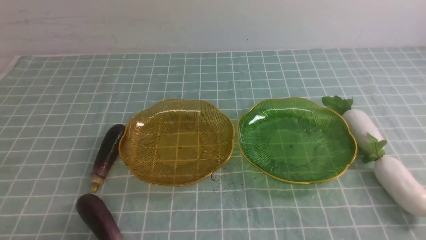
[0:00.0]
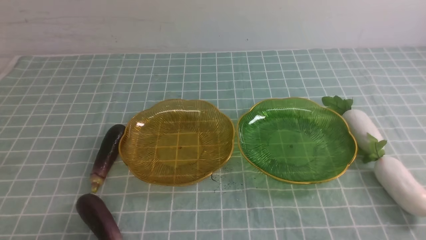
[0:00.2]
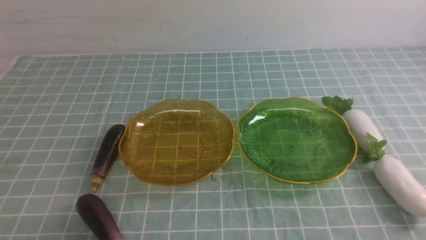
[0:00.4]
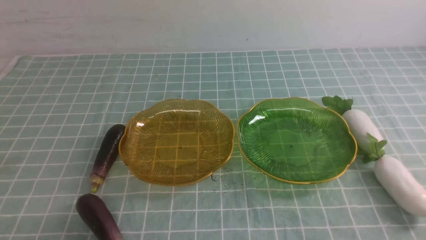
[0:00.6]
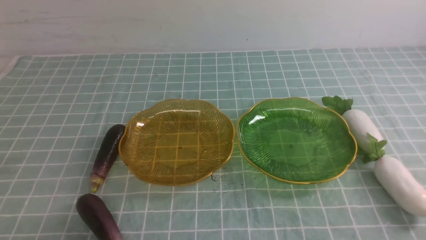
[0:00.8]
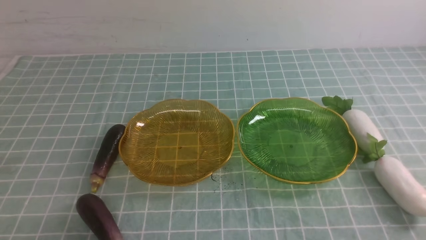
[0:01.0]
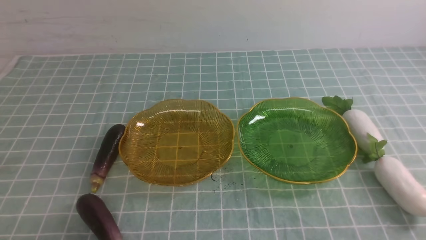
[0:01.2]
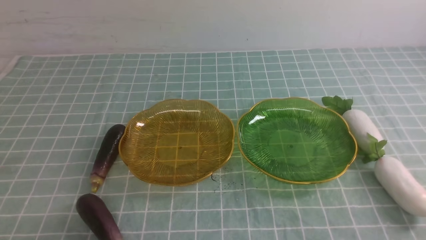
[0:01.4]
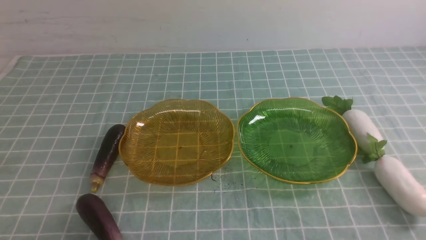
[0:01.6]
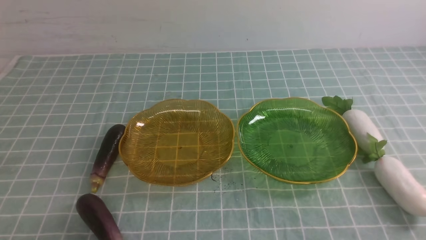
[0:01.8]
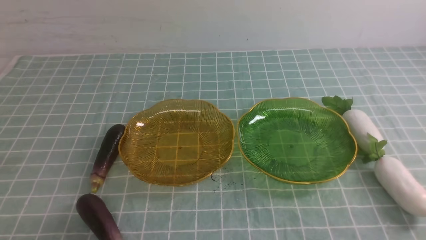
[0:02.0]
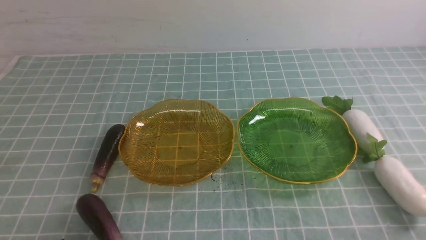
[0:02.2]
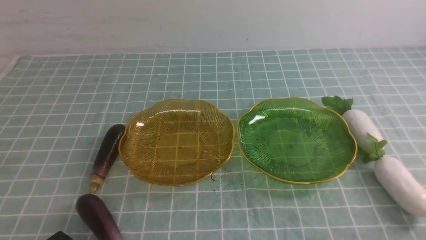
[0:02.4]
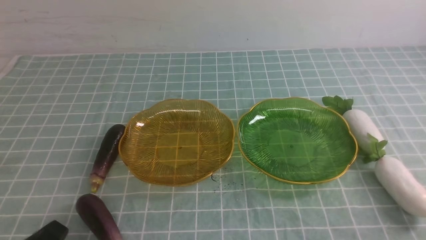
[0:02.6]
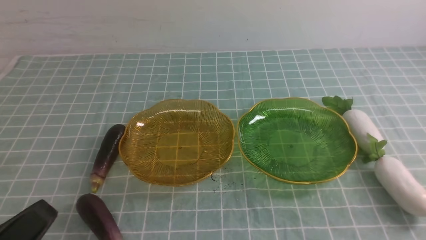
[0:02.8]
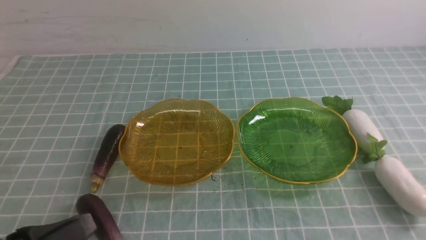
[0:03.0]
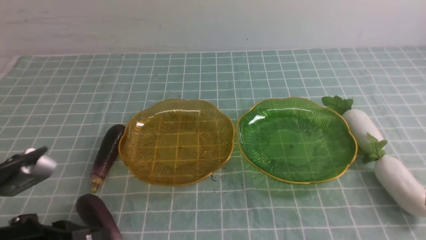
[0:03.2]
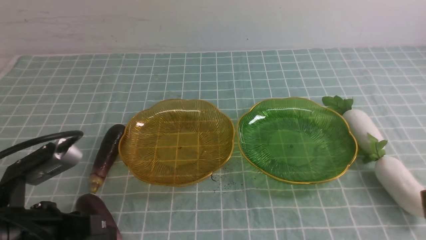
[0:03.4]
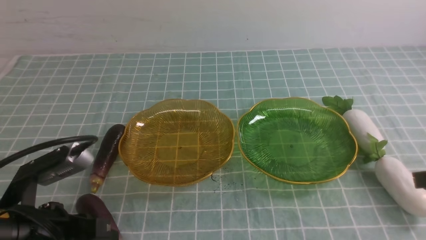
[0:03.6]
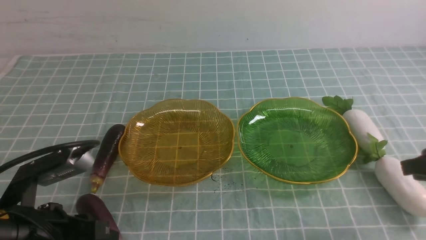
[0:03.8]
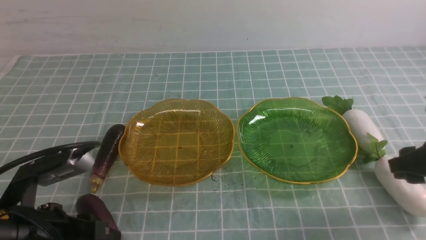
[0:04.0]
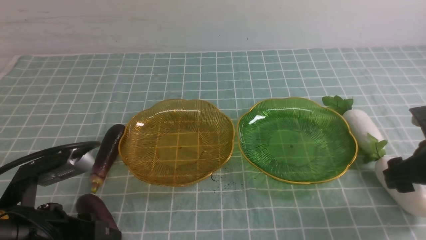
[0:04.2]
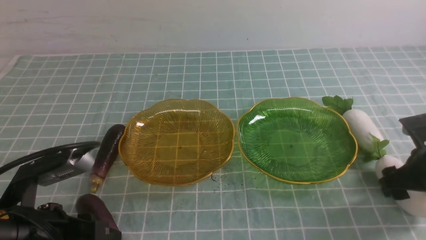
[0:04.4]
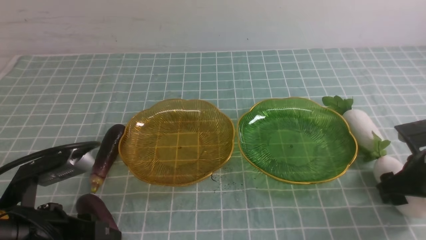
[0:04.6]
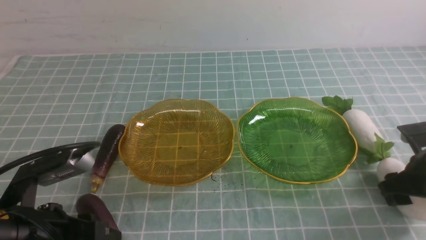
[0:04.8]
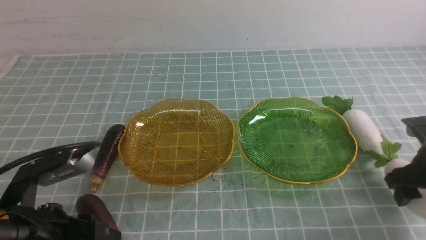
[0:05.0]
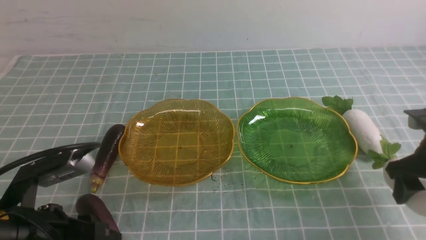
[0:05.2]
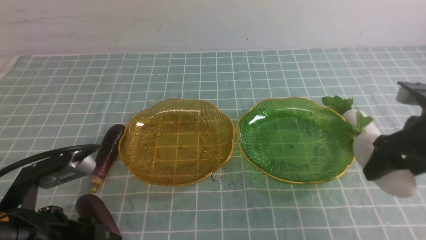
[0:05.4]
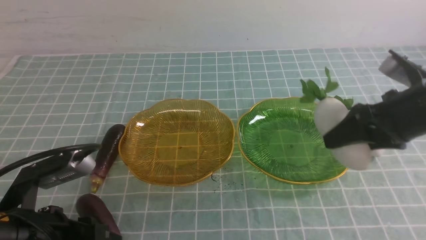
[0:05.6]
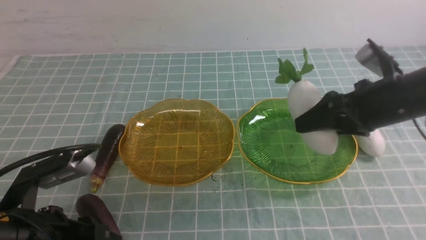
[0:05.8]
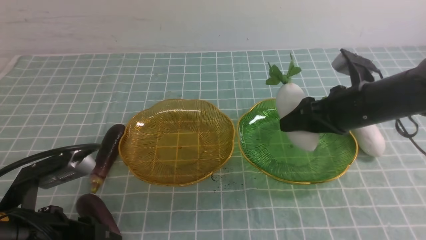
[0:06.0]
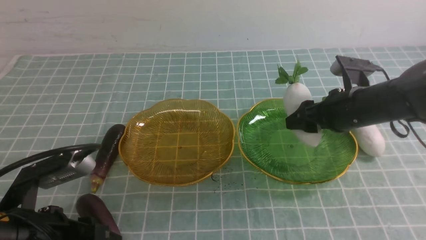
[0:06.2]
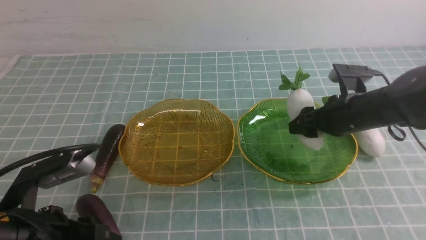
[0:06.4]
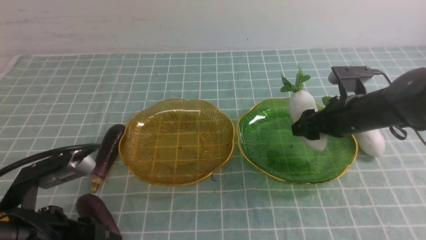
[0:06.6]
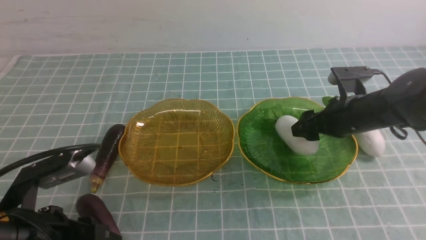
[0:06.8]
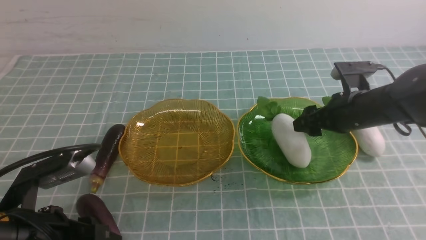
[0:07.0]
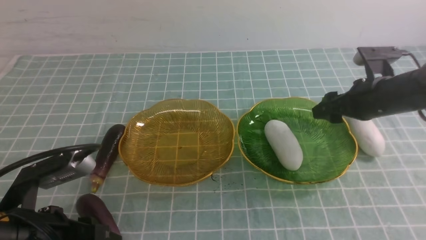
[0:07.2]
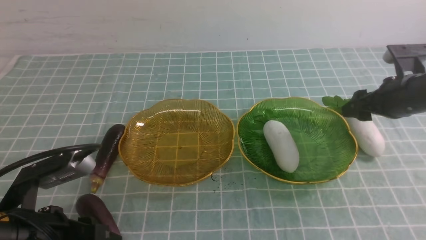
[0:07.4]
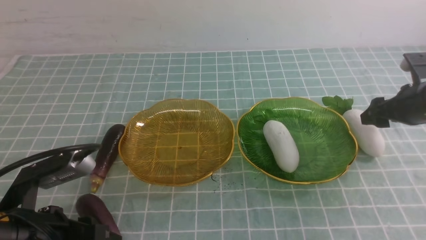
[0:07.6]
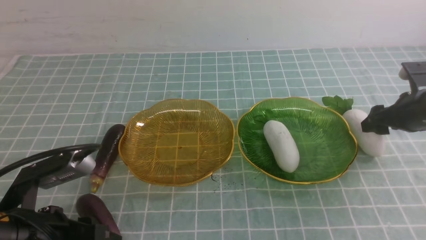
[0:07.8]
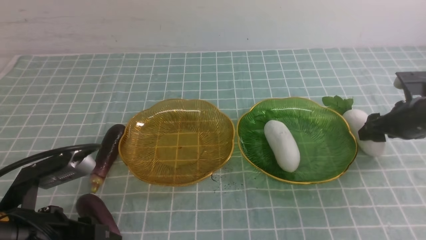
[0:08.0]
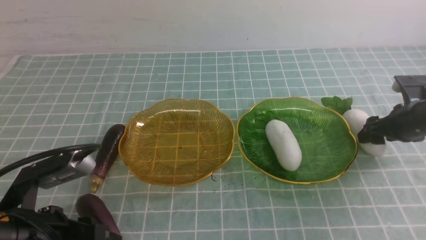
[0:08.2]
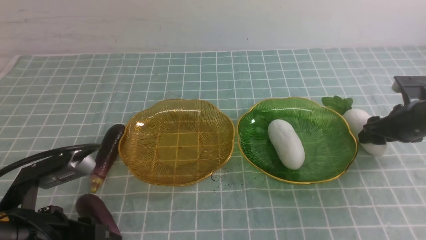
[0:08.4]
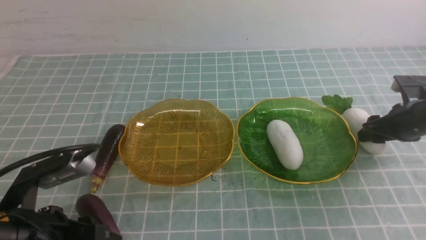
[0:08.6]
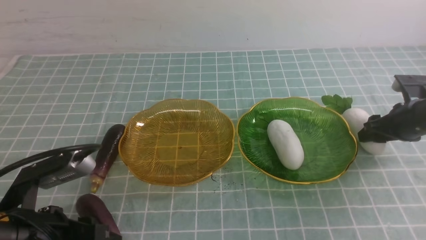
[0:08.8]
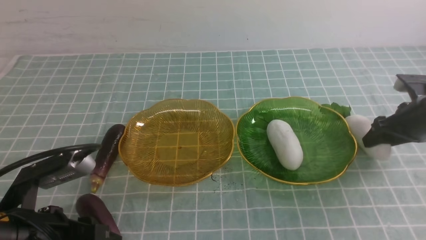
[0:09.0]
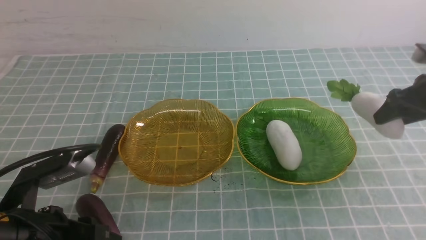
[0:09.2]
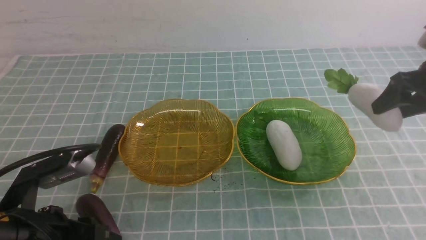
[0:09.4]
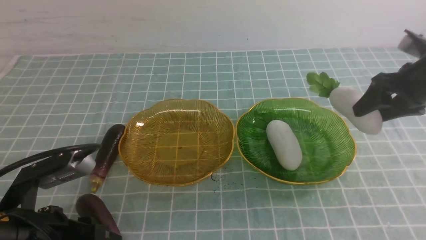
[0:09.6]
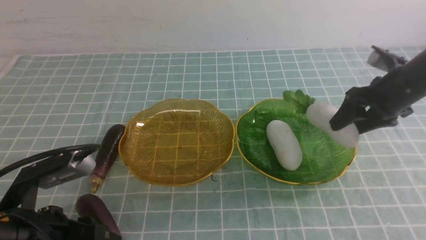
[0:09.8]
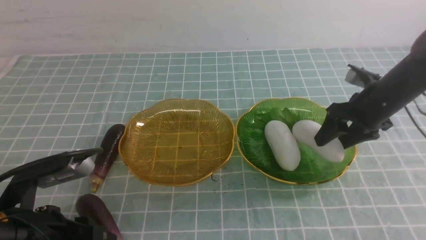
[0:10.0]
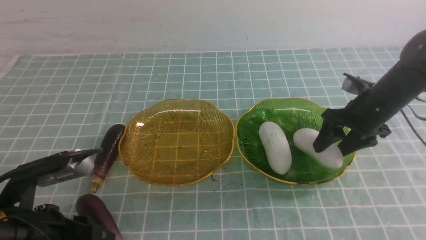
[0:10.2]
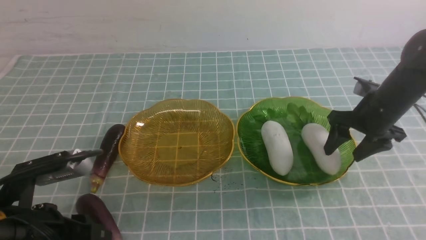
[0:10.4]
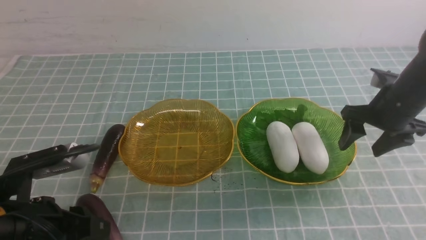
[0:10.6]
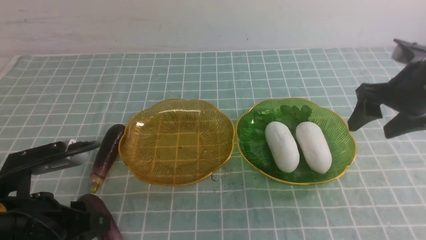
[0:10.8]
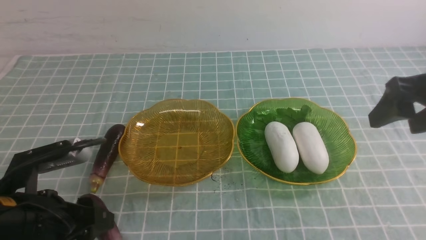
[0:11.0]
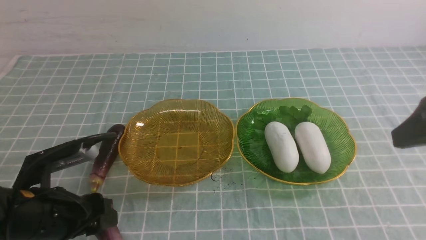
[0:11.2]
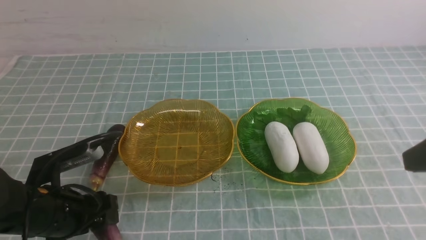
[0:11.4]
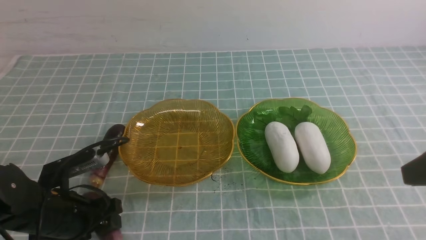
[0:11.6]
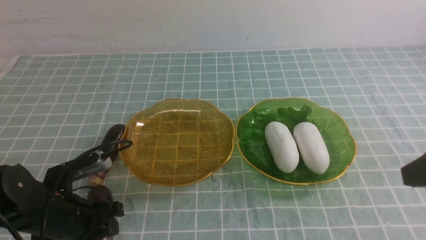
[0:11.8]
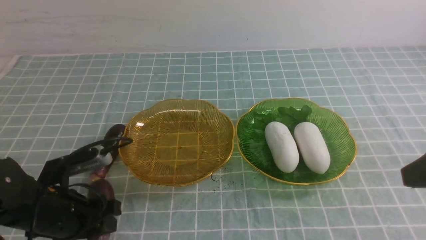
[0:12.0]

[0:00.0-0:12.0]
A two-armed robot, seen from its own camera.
Step, 0:00.0 to 0:10.6: use the right arm to grab a radish and put it into the right plate.
0:00.0 to 0:01.6: Both grippers stay about where they are.
0:01.6 to 0:03.0: The left gripper travels upward by some 10 cm.
0:03.0 to 0:04.4: The right gripper moves forward and downward, roughly 25 cm, and opens its fingers; the left gripper travels forward by some 5 cm, and opens.
0:04.4 to 0:06.0: The right gripper travels to the left, upward and forward by about 15 cm.
0:06.0 to 0:07.6: The right gripper is displaced to the right by approximately 10 cm.
0:07.6 to 0:09.0: The grippers make only small movements.
0:09.0 to 0:10.4: The right gripper moves to the left, roughly 10 cm.
0:10.4 to 0:12.0: The left gripper goes approximately 10 cm forward. The right gripper travels backward and upward by about 25 cm.

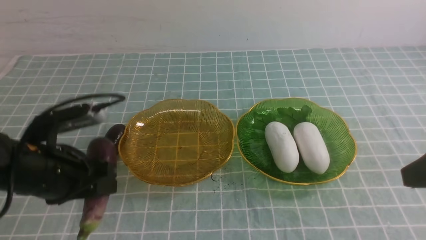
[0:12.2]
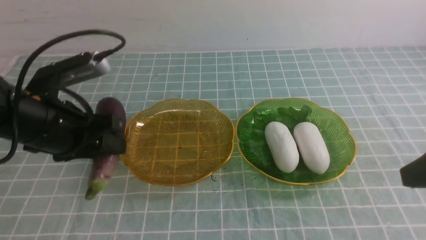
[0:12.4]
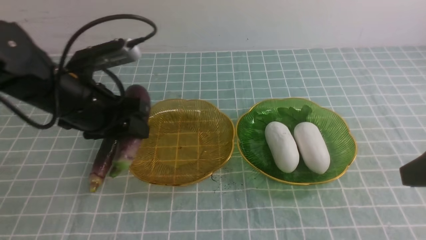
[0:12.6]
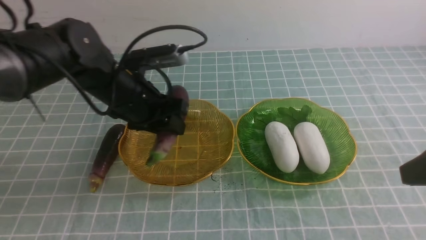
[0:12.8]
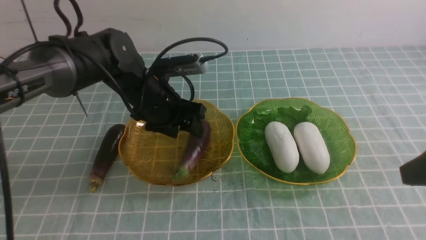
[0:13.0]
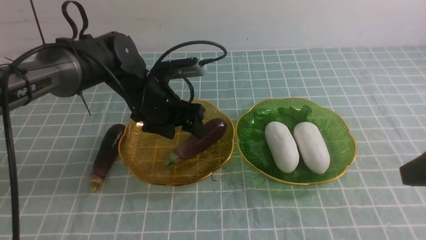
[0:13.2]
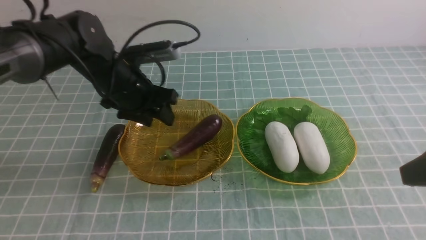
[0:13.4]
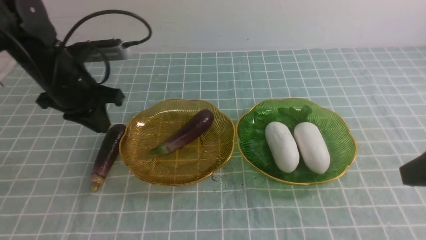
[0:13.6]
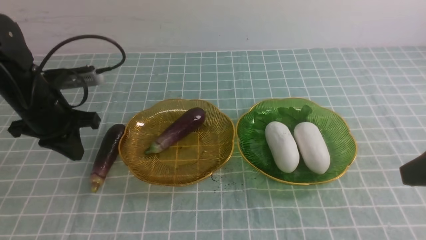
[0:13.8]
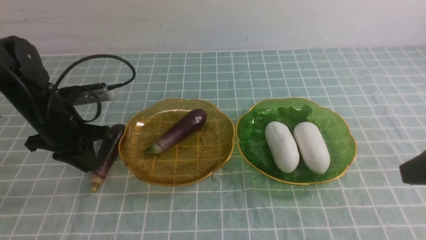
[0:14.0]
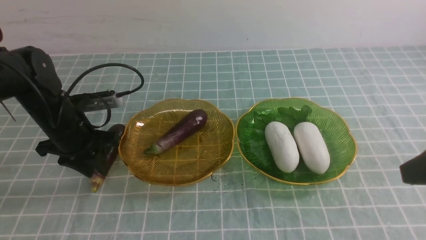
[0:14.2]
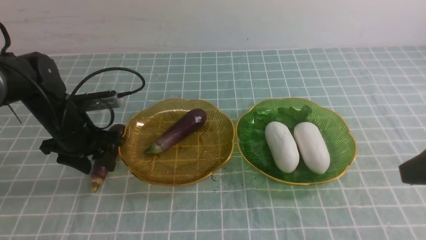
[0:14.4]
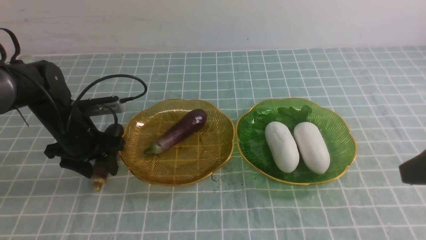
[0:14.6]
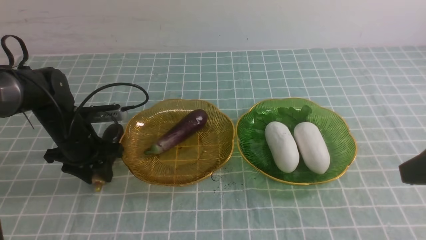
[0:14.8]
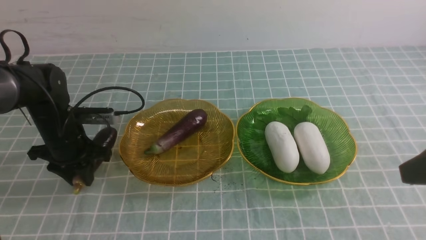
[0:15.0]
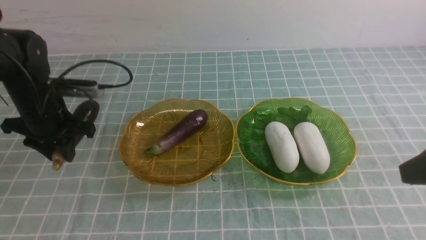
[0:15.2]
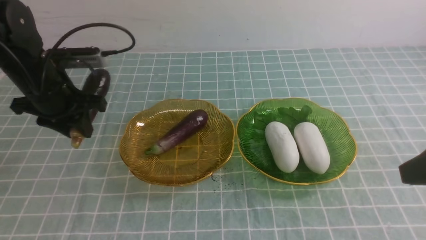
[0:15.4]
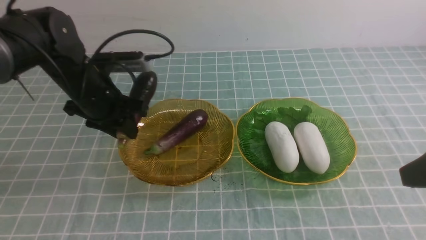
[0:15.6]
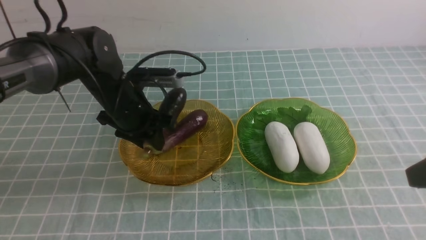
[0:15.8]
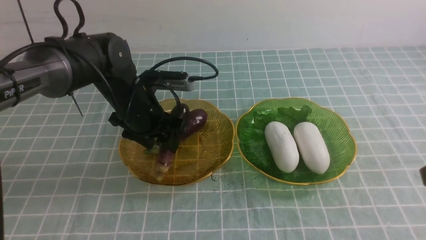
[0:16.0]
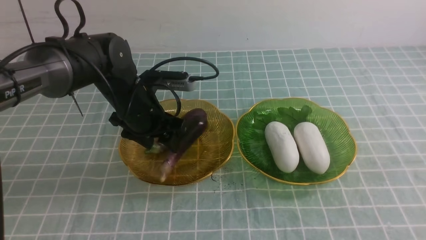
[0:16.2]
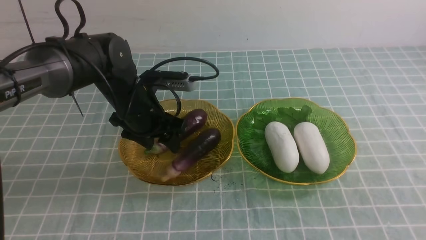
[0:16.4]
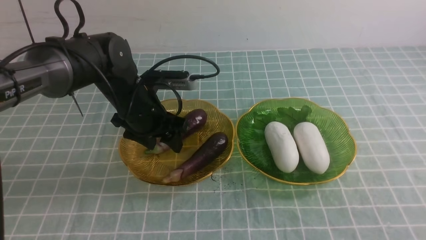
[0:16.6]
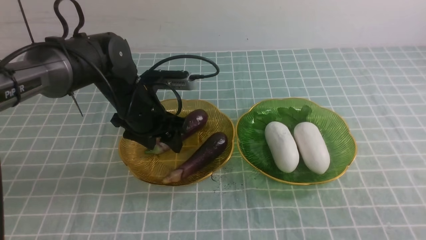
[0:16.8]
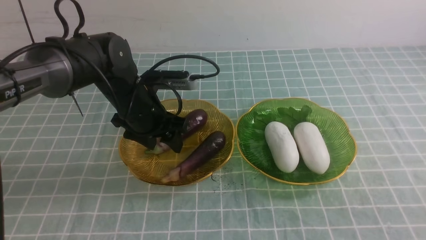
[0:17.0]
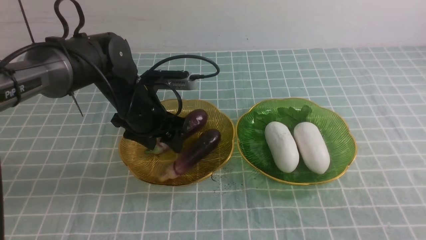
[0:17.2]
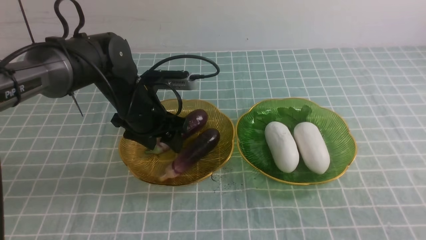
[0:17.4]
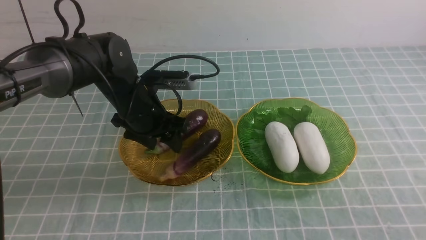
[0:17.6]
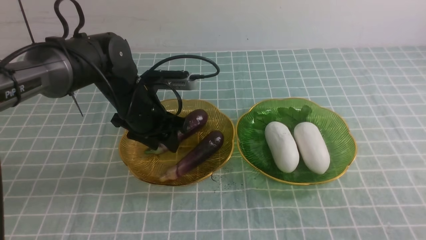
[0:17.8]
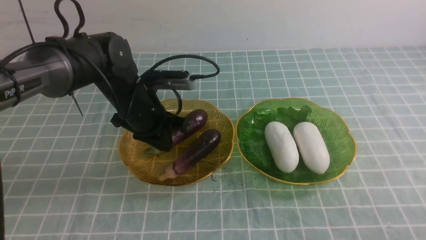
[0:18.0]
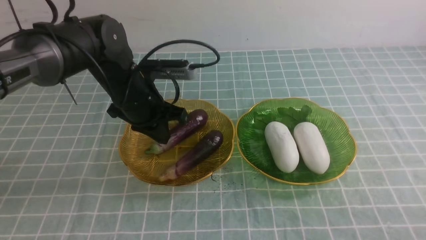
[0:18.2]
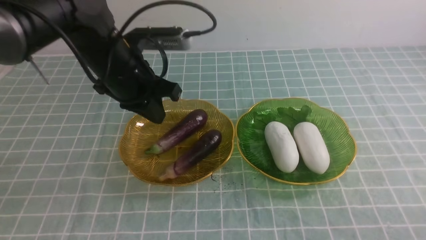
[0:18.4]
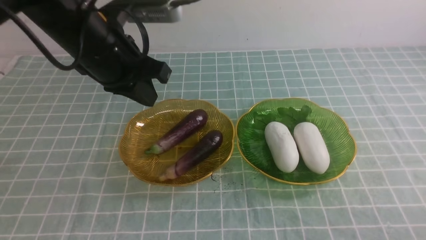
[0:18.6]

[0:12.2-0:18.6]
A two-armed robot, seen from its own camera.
Step, 0:12.2 to 0:16.4: use the left arm to grab an eggplant and put it into the left plate.
0:12.2 to 0:13.8: The left gripper heads forward, covering roughly 10 cm, and closes up.
0:13.8 to 0:15.4: The left gripper reaches approximately 10 cm downward, then returns, and opens.
0:15.4 to 0:17.0: The right gripper moves backward and downward, some 15 cm, and closes its fingers, while the left gripper moves to the right, approximately 10 cm, and opens its fingers.
0:17.0 to 0:18.6: The left gripper is displaced upward and backward by roughly 15 cm, and closes its fingers. The right gripper moves downward, about 10 cm.
